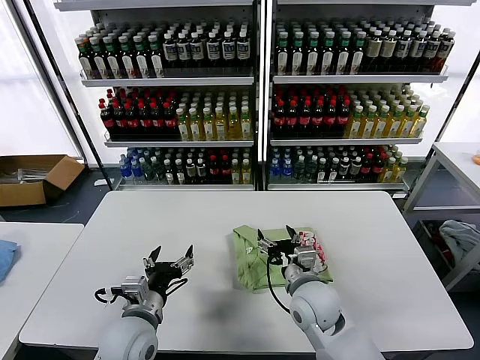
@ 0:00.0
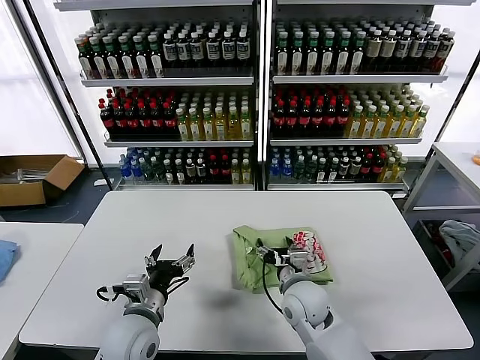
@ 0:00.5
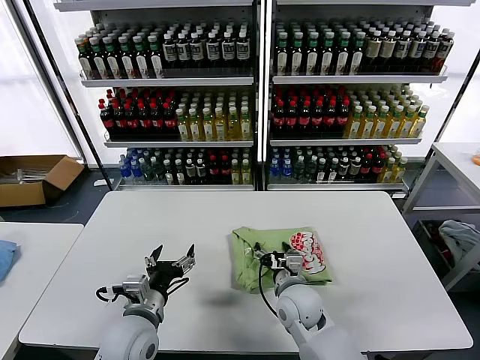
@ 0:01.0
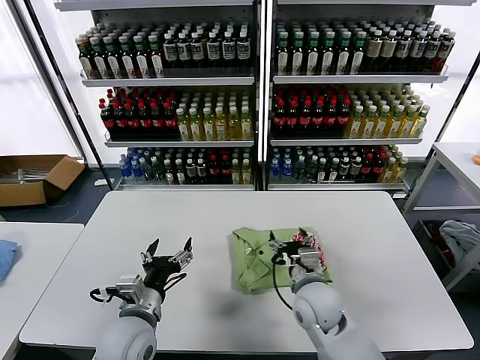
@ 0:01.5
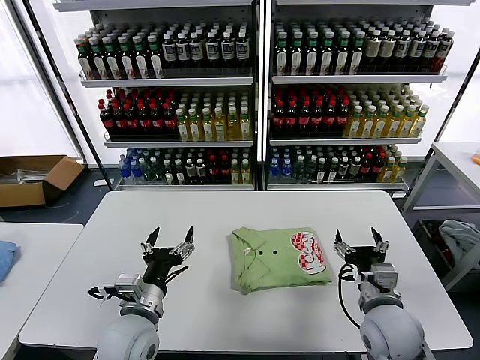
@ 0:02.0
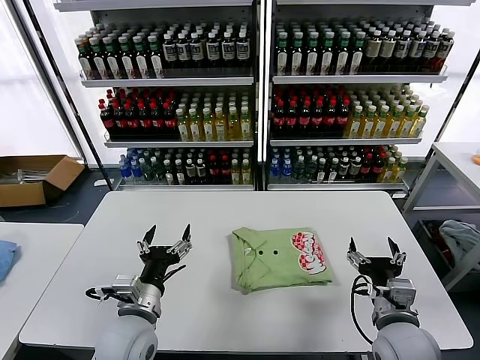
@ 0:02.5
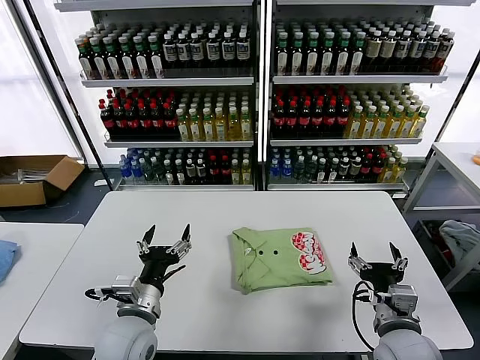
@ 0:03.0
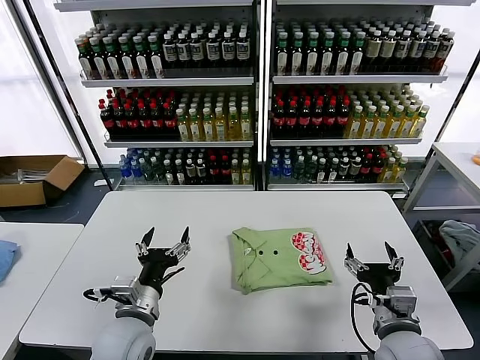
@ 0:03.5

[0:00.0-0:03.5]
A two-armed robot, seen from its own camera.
Task of the whole recording: fold and organize the clothes.
0:00.0 to 0:02.0: The right gripper travels to the right by approximately 10 cm.
0:02.0 to 0:03.5: The right gripper heads backward, covering approximately 5 cm.
